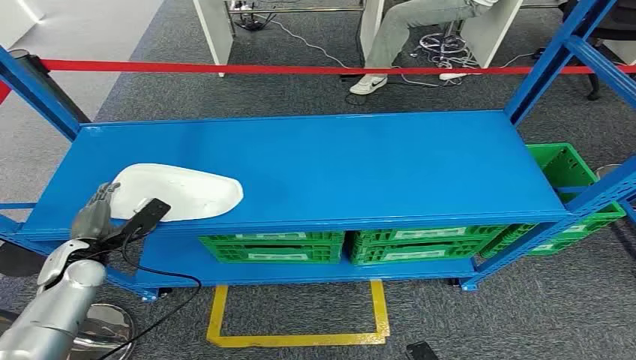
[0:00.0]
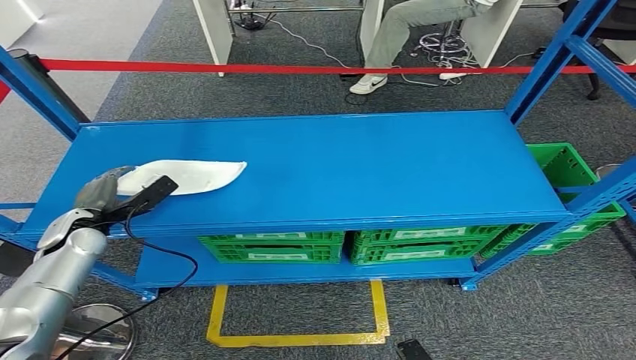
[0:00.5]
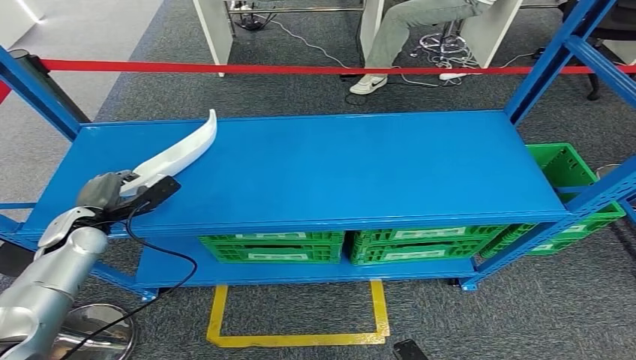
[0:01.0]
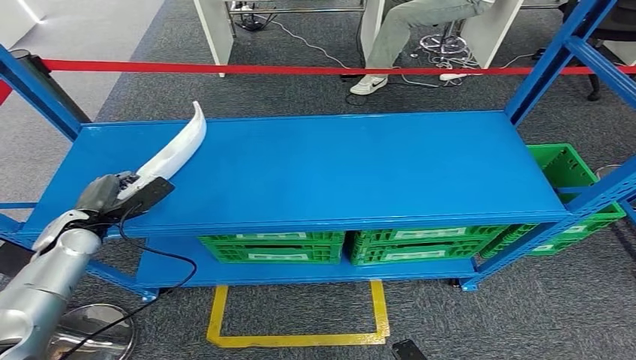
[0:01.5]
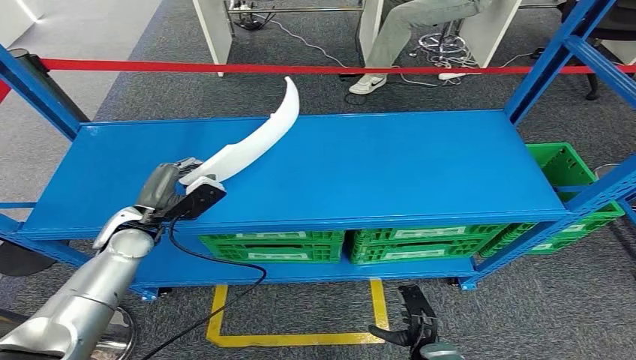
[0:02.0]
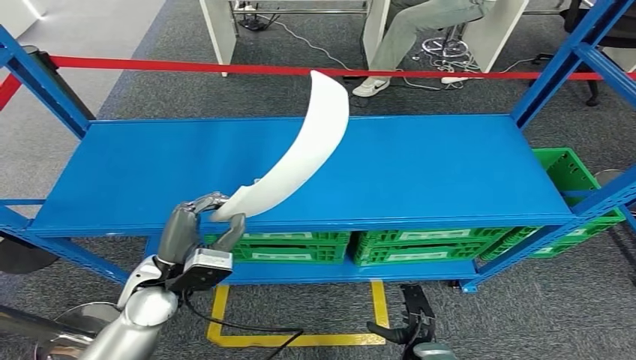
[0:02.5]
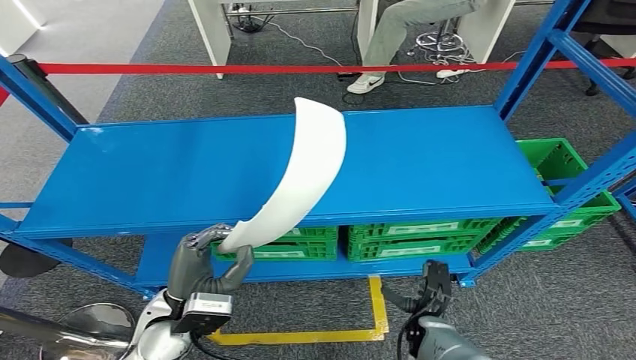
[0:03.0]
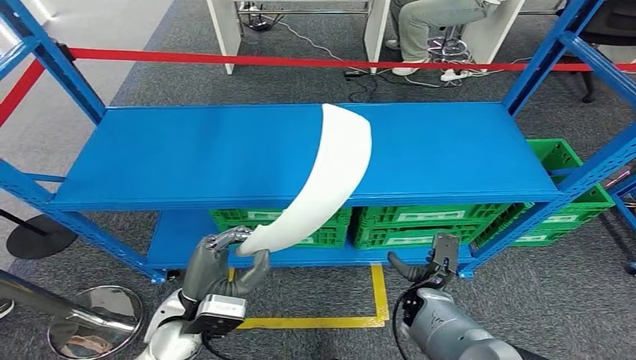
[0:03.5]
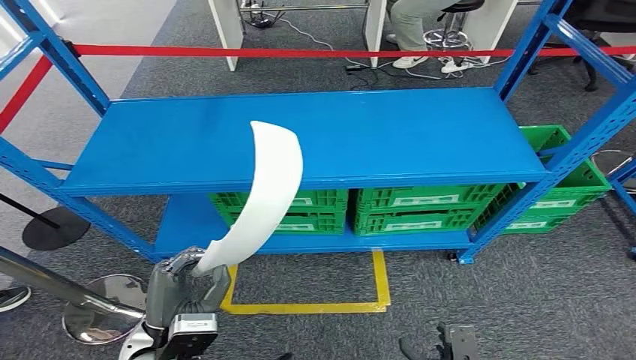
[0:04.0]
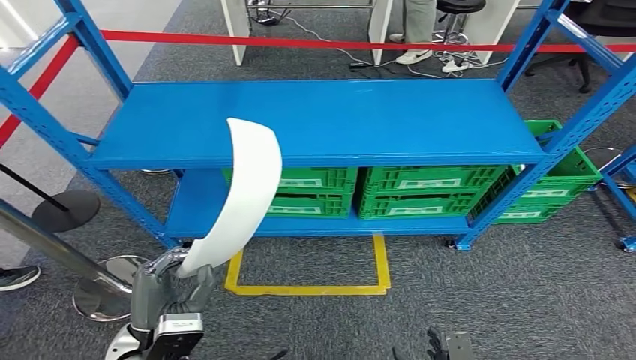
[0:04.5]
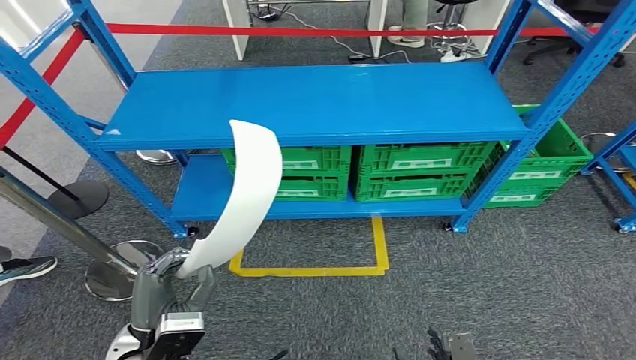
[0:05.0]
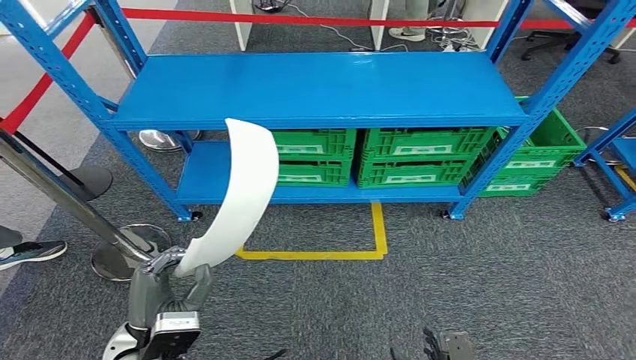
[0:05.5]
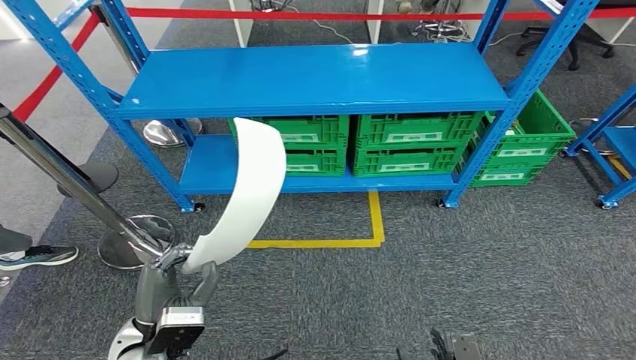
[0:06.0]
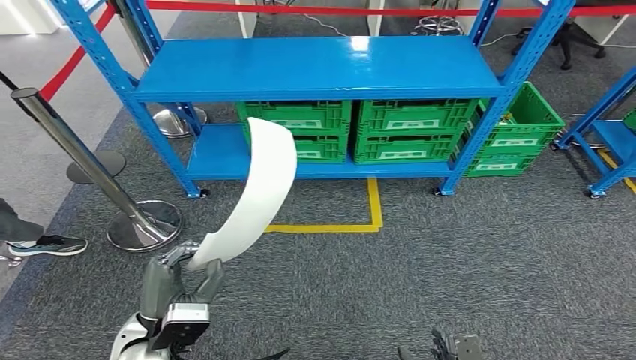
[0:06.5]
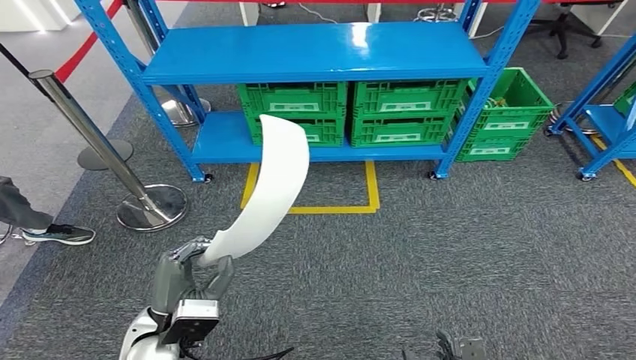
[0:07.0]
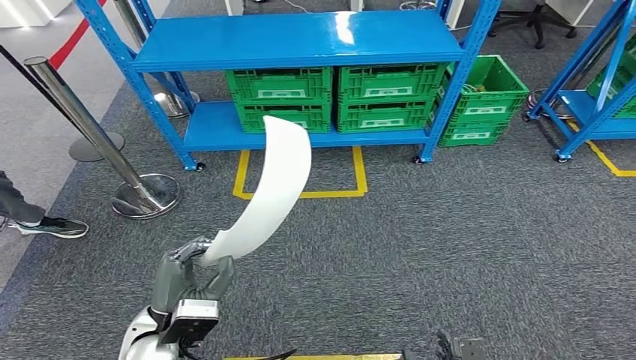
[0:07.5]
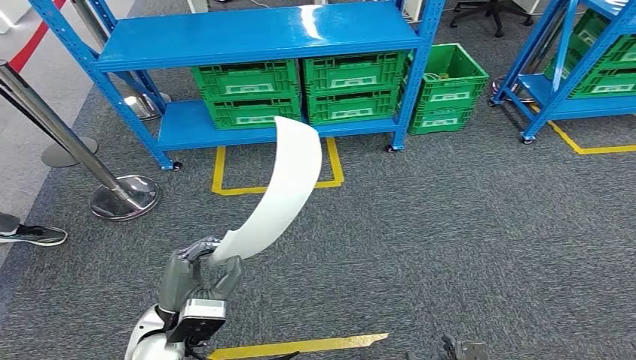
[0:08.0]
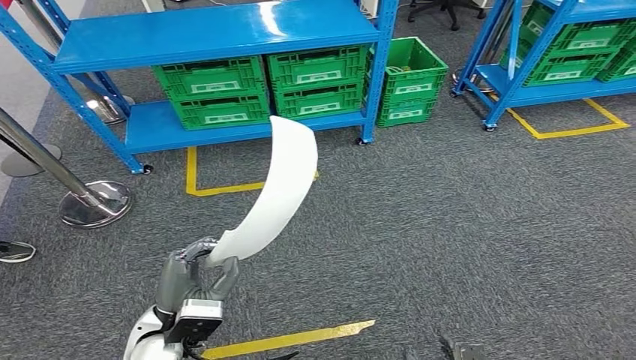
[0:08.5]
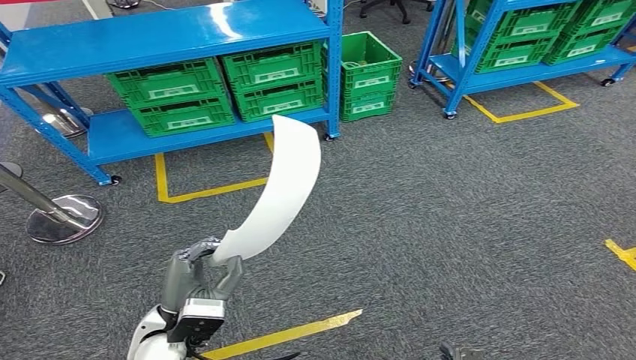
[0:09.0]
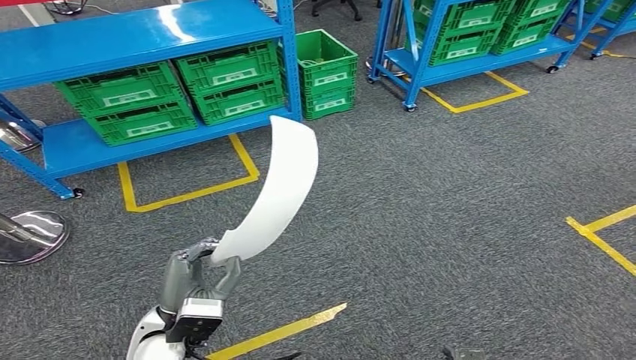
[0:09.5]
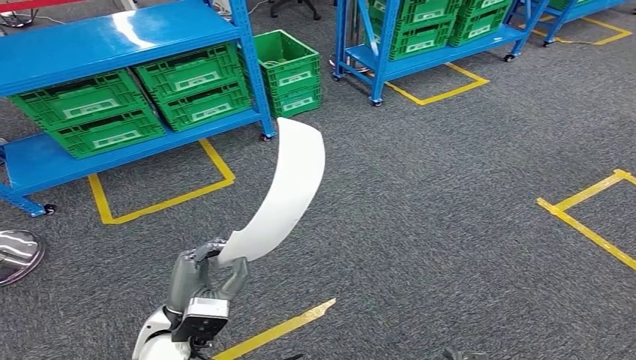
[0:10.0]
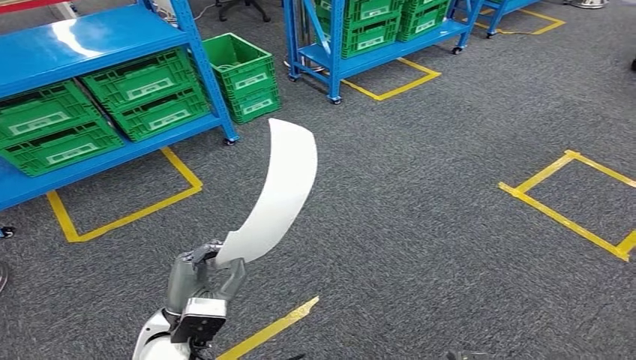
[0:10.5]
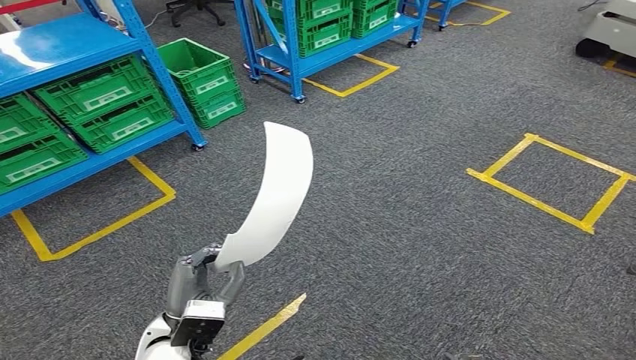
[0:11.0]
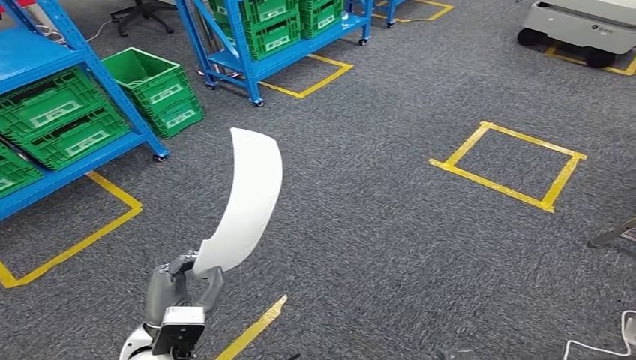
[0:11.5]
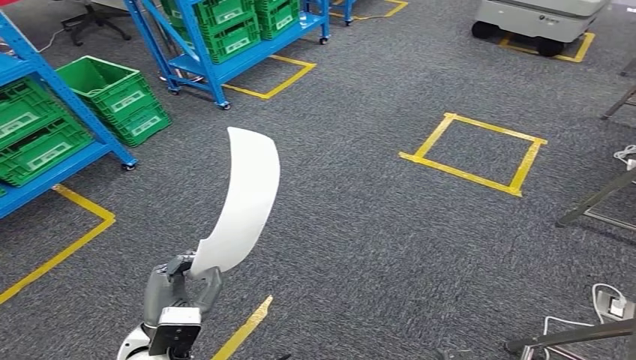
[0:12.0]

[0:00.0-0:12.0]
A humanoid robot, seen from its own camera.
Step, 0:00.0 to 0:05.0: Pick up the small component from the shelf.

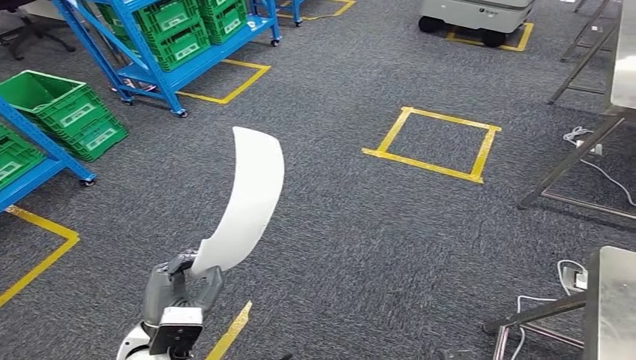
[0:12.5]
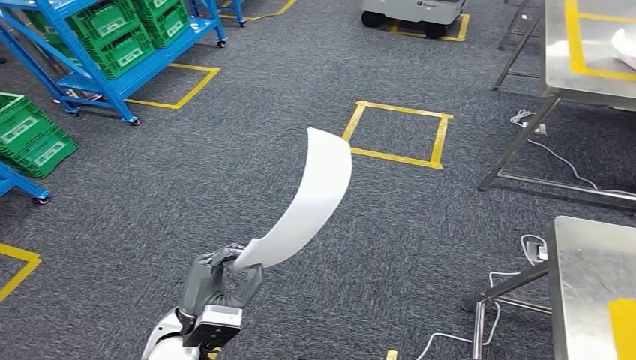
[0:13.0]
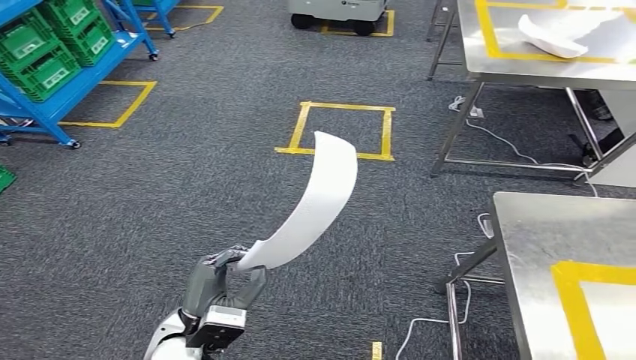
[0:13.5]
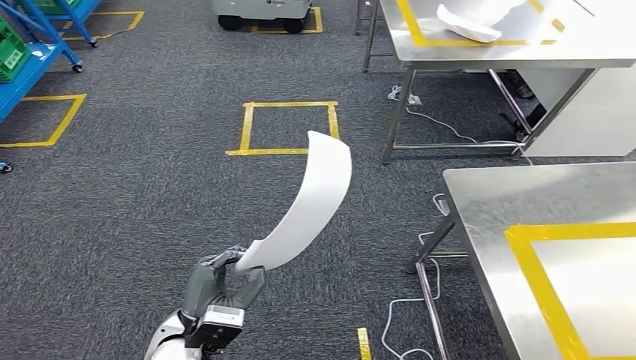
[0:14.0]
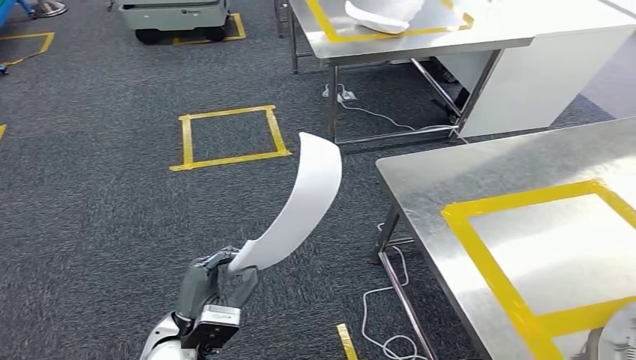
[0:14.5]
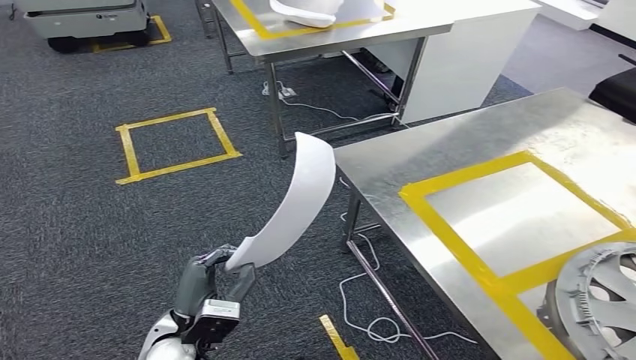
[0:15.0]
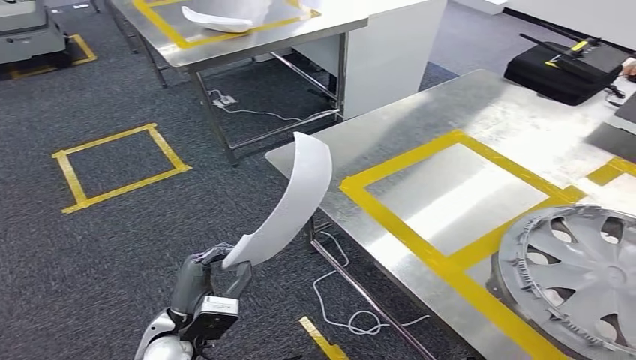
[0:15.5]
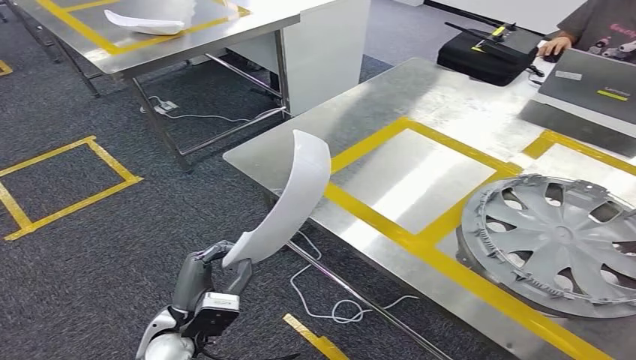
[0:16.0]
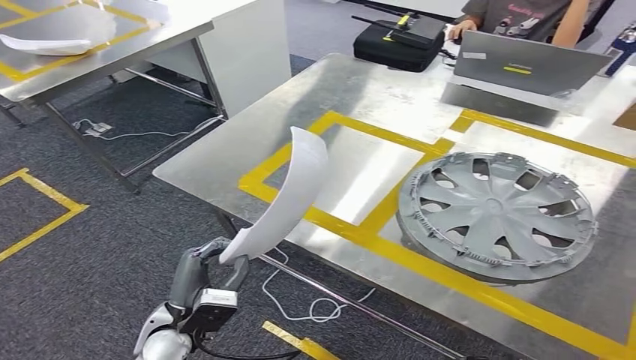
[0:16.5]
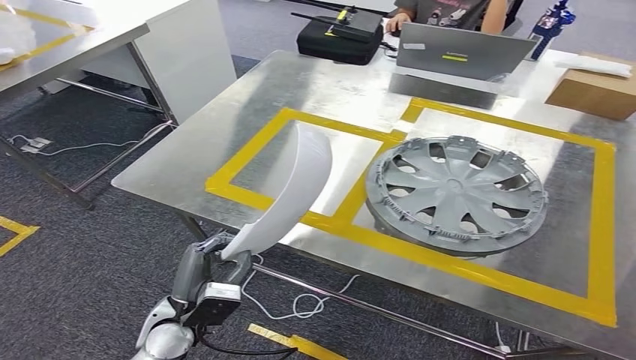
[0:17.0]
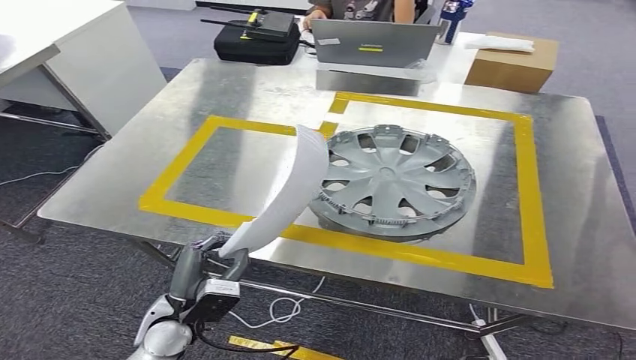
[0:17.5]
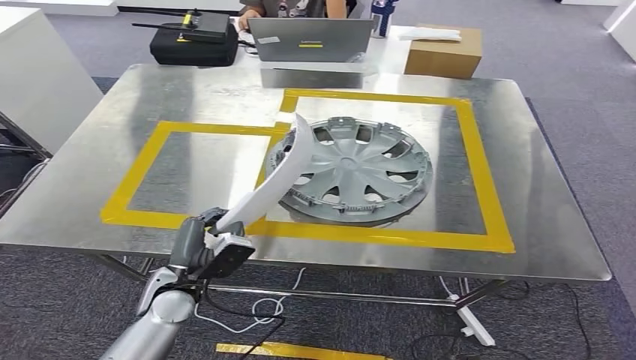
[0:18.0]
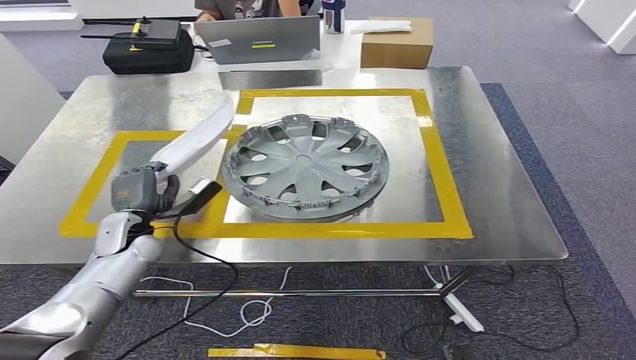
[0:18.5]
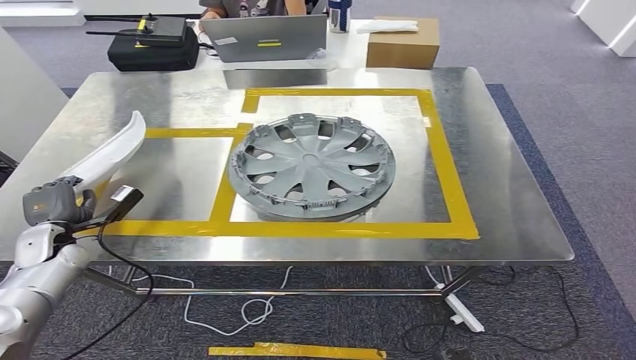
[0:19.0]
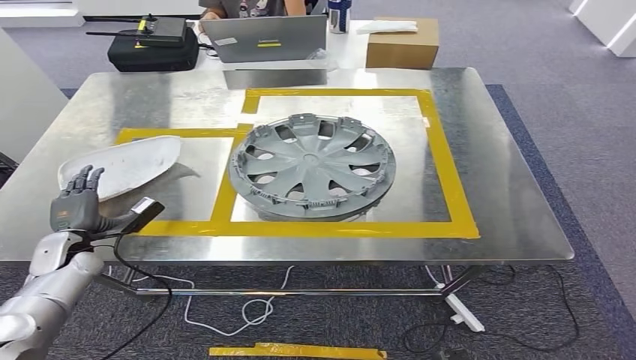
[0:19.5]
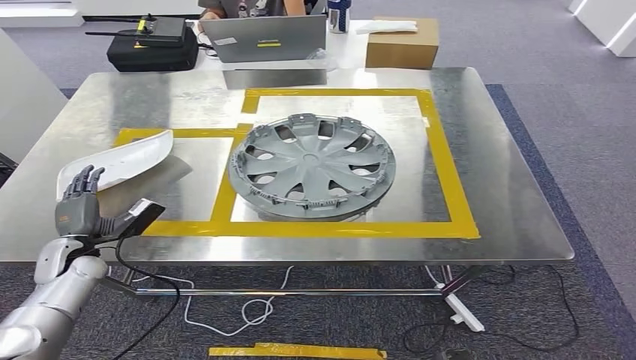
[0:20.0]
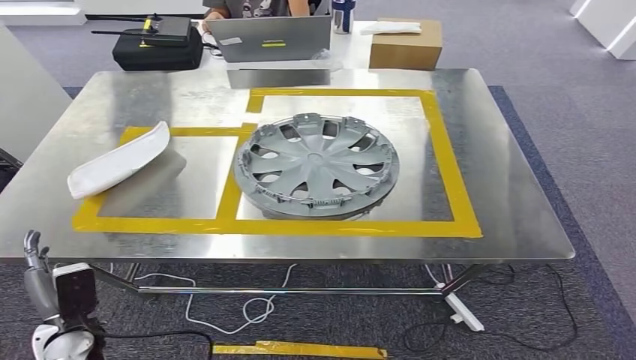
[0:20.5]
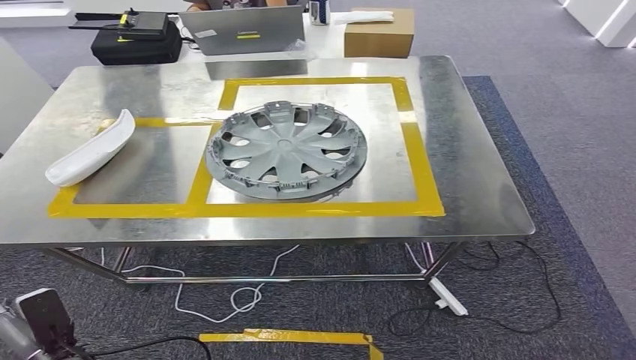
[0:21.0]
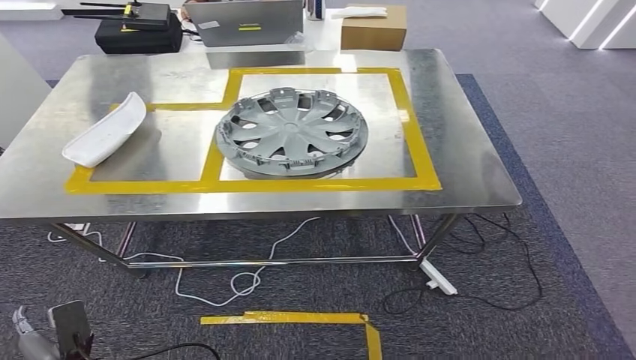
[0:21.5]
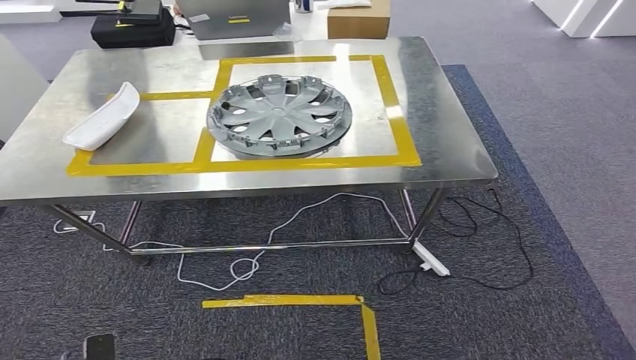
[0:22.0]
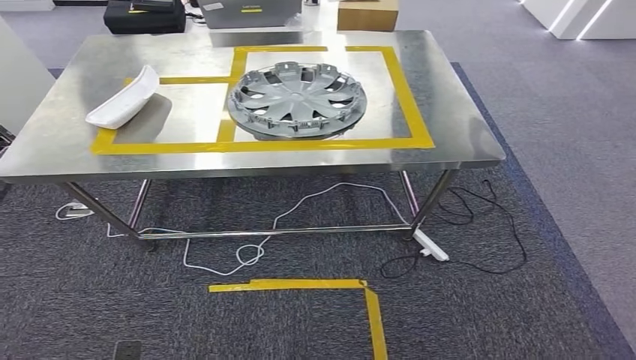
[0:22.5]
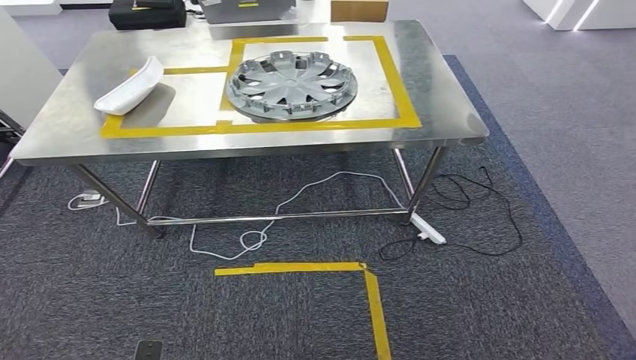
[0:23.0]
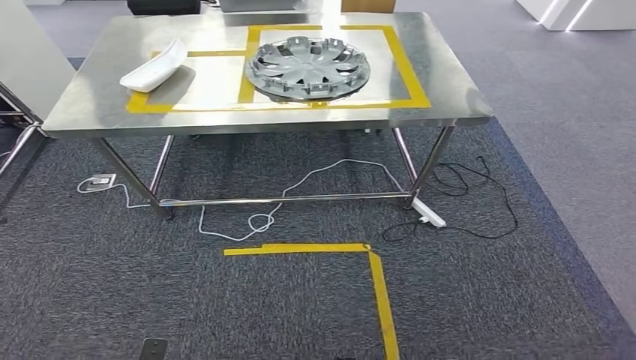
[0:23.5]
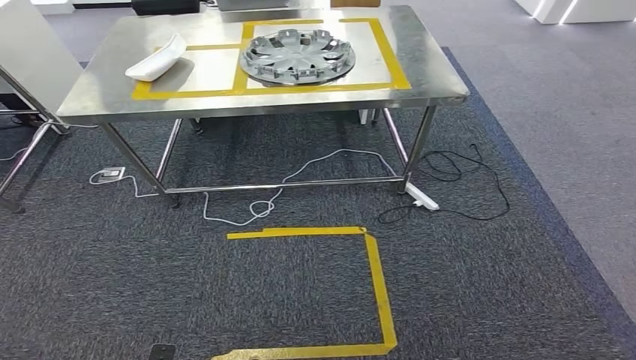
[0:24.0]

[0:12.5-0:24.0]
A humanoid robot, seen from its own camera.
Step, 0:12.5 to 0:18.0: Move the small component to the workbench.
Step, 0:18.5 to 0:21.5: Insert the small component into the corresponding slot on the workbench.
